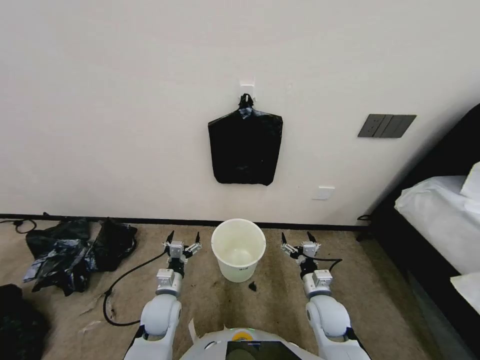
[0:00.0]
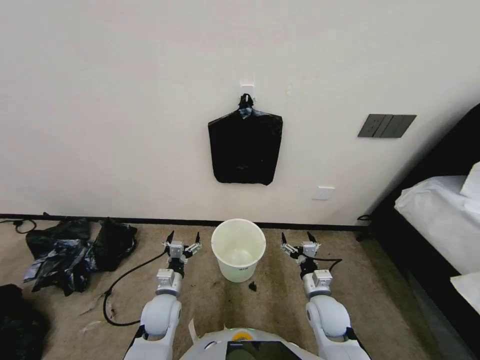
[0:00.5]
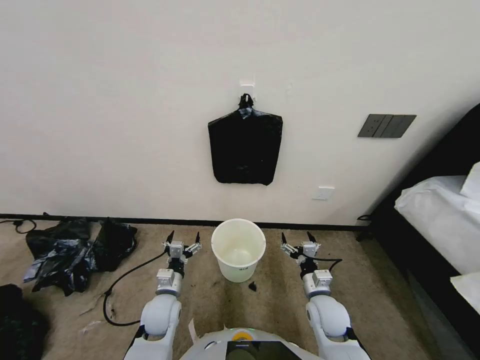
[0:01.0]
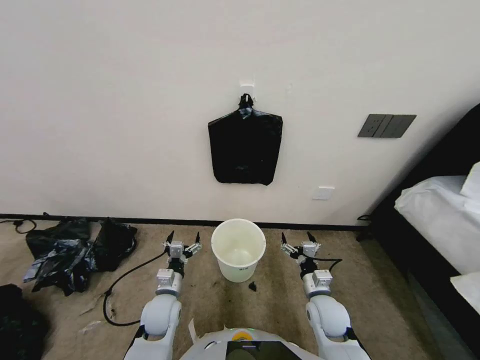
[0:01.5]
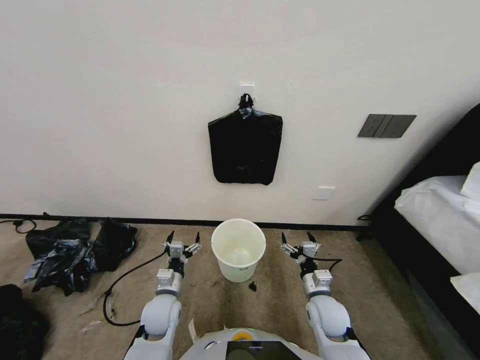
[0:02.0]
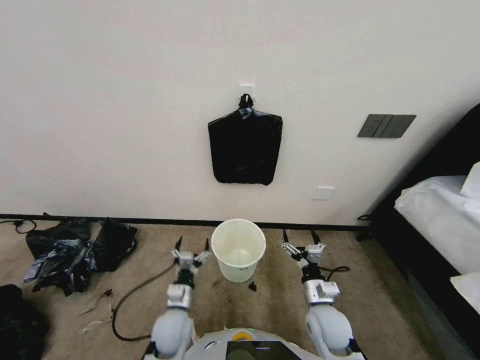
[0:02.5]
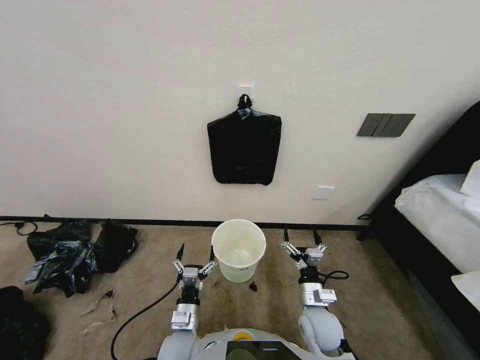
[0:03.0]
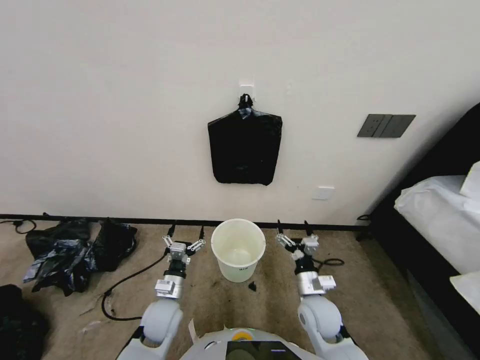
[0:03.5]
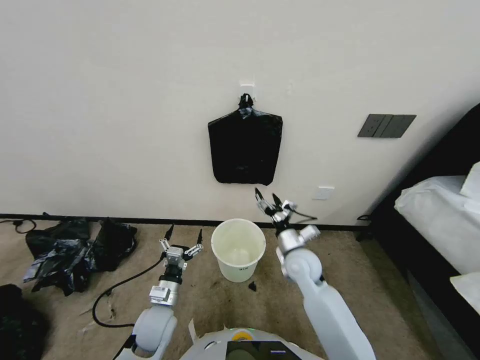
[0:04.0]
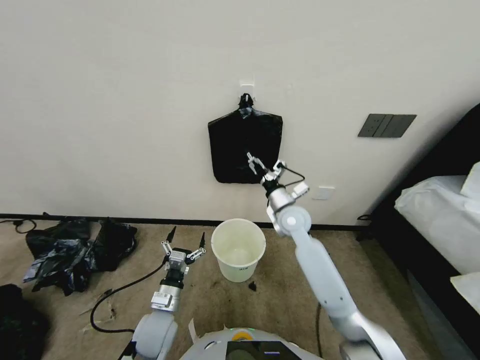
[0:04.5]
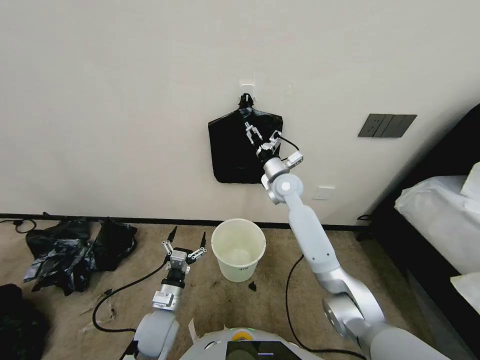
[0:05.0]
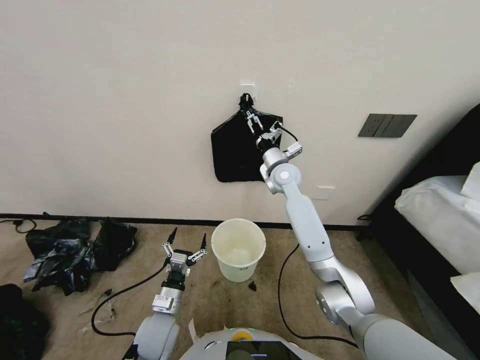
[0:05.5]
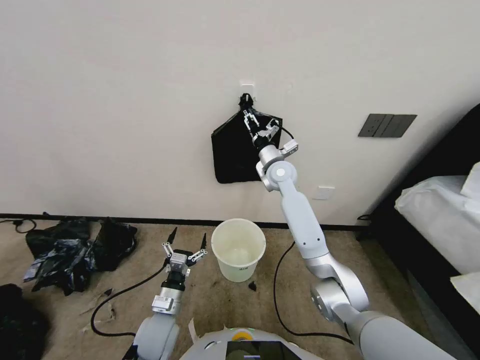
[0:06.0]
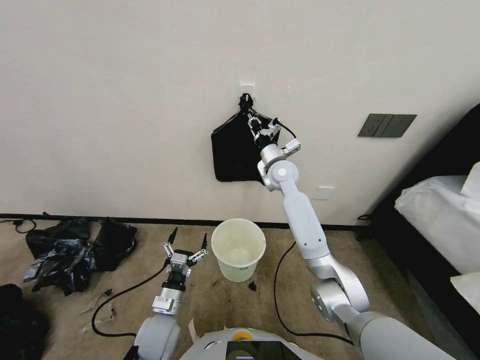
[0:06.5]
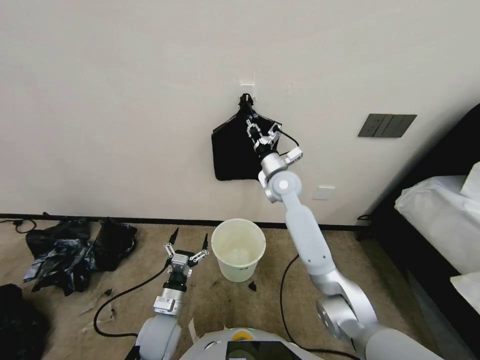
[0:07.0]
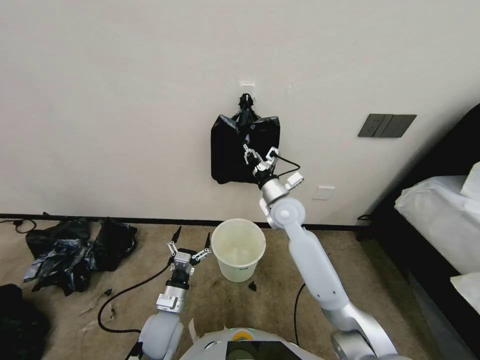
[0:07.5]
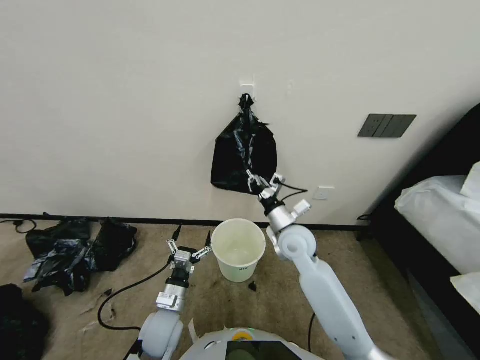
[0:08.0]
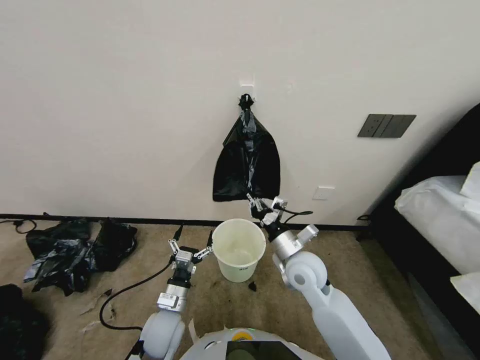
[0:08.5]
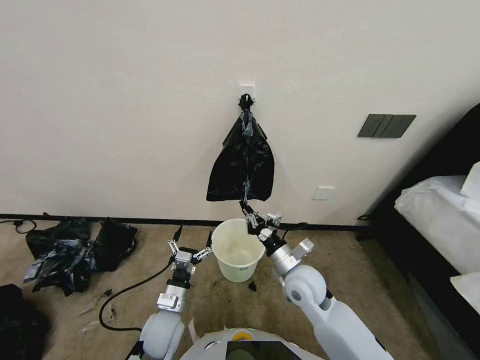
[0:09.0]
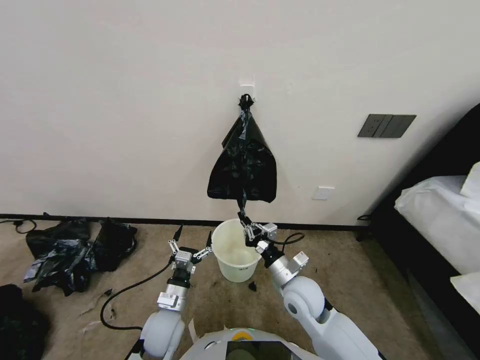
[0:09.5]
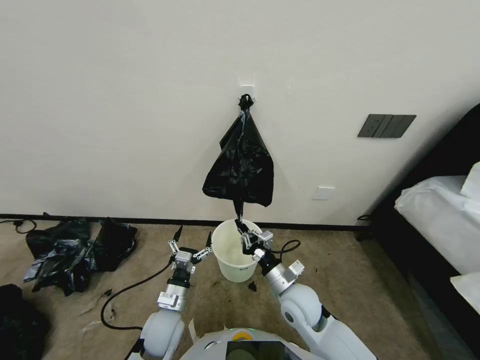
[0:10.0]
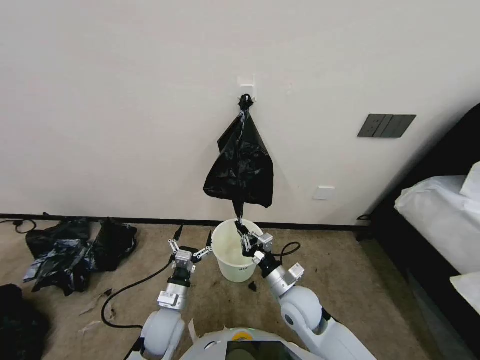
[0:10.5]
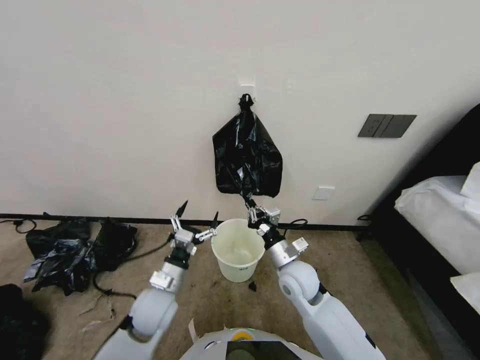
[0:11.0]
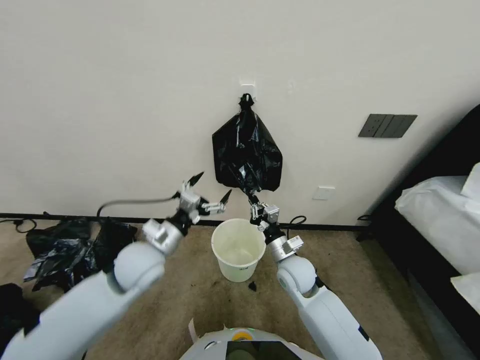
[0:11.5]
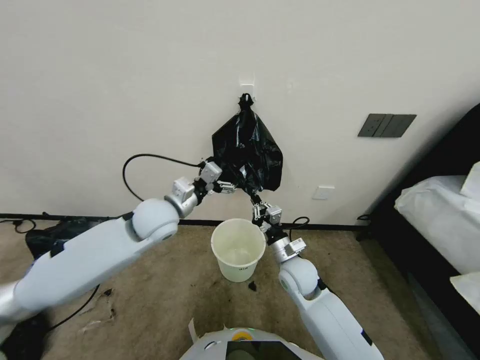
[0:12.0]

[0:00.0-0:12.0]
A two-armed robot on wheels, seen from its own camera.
Task of the whole recording: Place a trash bag onto the trash bin.
0:02.0 to 0:04.0: The right gripper moves forward and upward, roughly 10 cm. The left gripper reaches roughly 10 cm backward, then returns.
0:04.0 to 0:06.0: The right gripper shifts roughly 30 cm forward and upward, and closes up.
0:06.0 to 0:08.0: The right gripper moves backward and downward, about 20 cm, and closes.
0:08.0 to 0:10.0: The right gripper moves backward and downward, roughly 15 cm.
0:10.0 to 0:12.0: The right gripper shifts some 5 cm forward, while the left gripper travels upward and forward by approximately 30 cm.

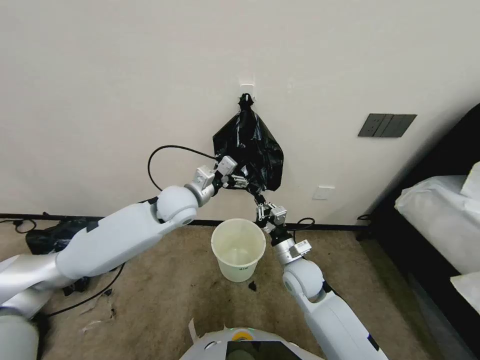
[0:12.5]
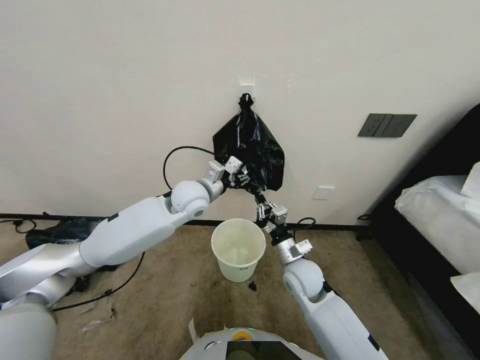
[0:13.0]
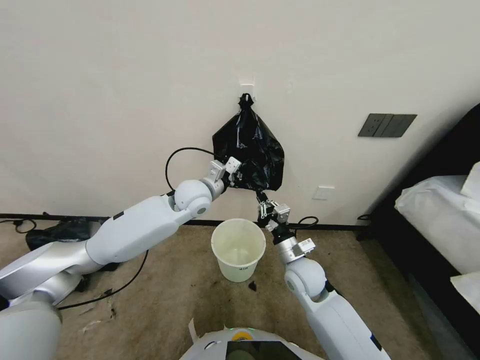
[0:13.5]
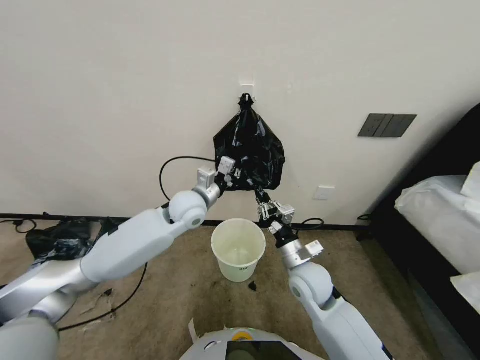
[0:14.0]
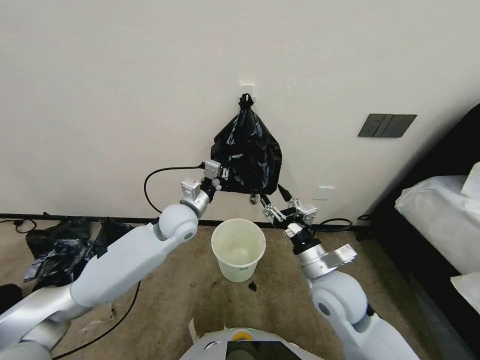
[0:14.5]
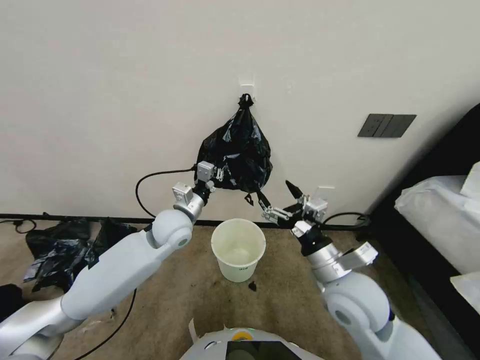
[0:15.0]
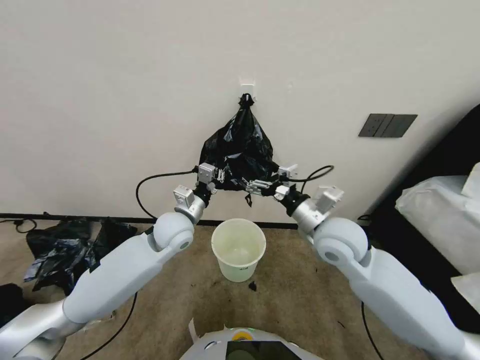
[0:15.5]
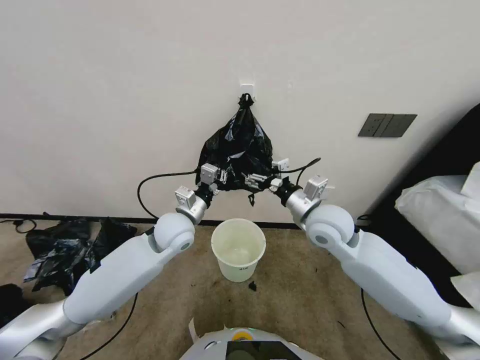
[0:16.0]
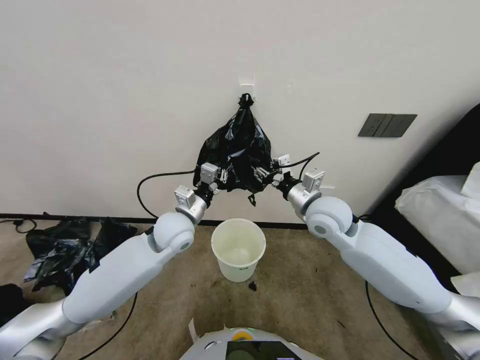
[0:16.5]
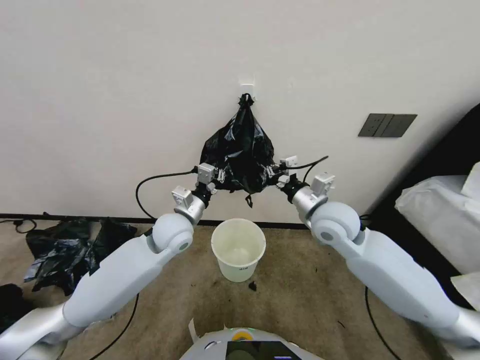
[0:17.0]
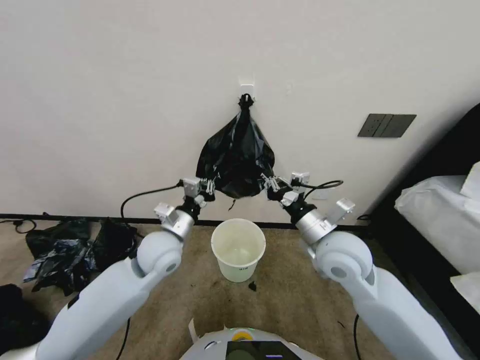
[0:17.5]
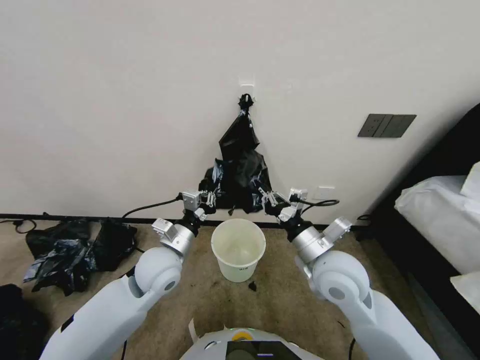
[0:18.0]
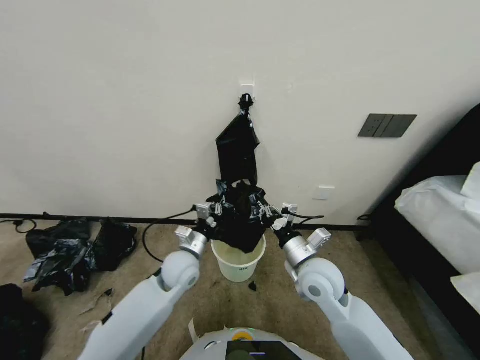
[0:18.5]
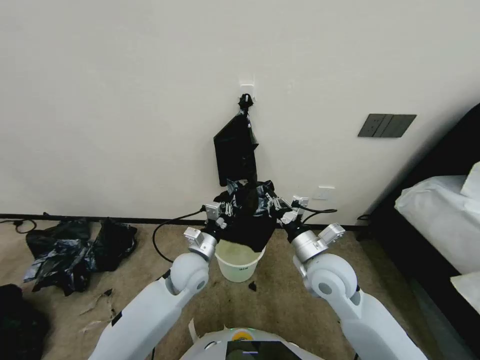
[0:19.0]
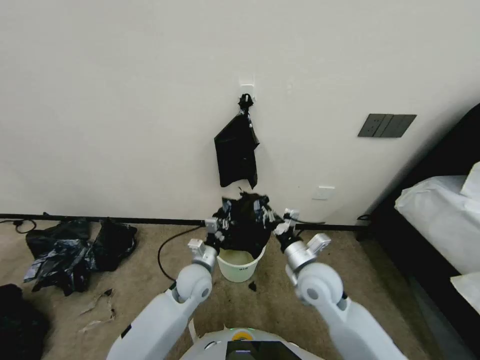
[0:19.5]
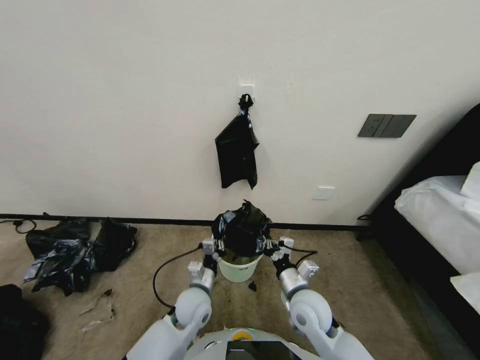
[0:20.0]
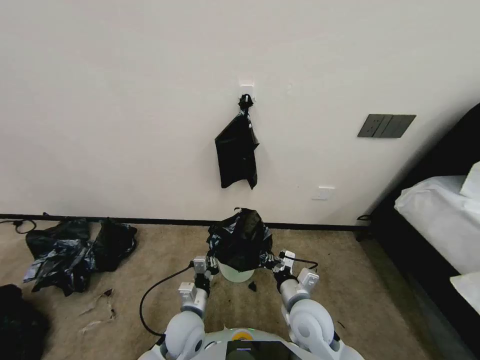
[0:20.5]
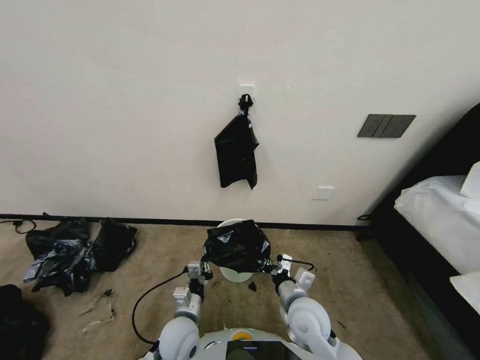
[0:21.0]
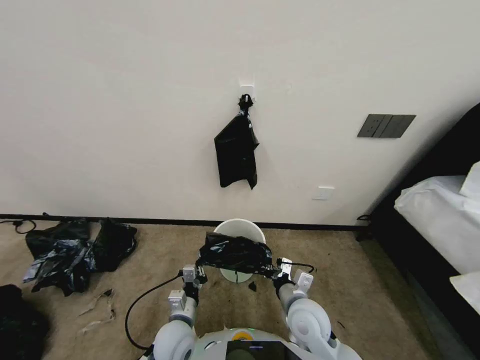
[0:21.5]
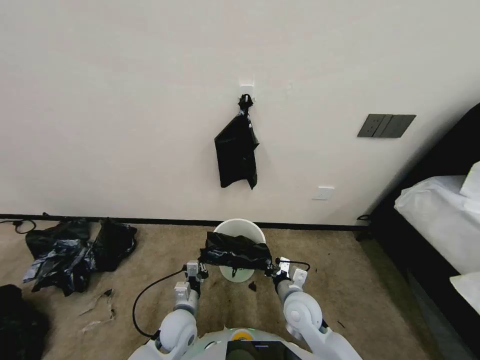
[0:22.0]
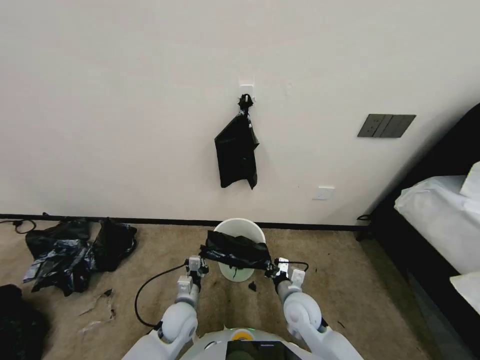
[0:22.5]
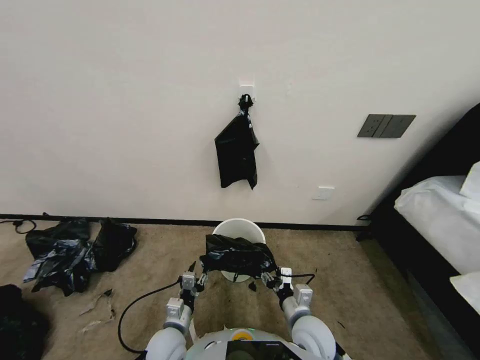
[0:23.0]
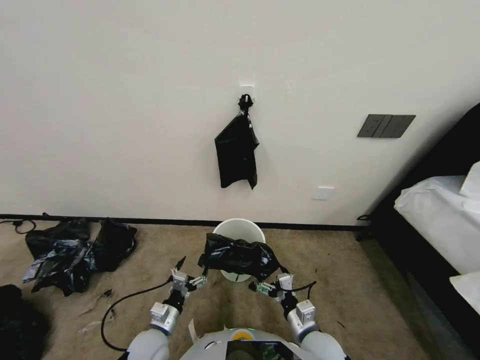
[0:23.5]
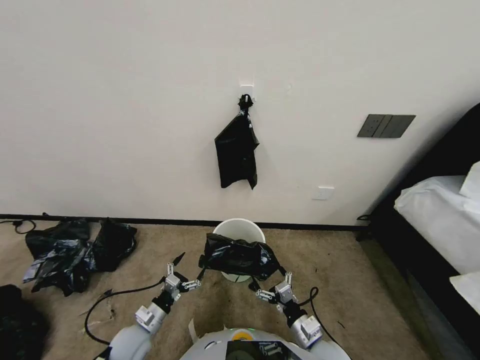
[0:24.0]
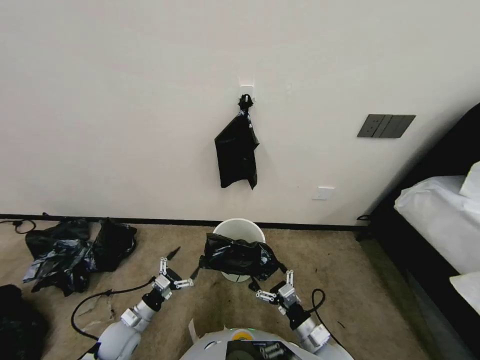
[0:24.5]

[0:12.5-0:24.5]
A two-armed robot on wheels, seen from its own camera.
Task of the whole recording: Place a trash bag onto the trash bin.
0:12.5 to 0:14.5: The left gripper closes; the right gripper is displaced upward and backward by roughly 10 cm, and opens its fingers.
0:14.5 to 0:16.5: The right gripper shifts roughly 15 cm forward and upward, and opens and closes again.
0:16.5 to 0:18.5: The left gripper moves downward and backward, roughly 10 cm. Meanwhile the right gripper heads backward and downward, covering approximately 15 cm, and closes up.
0:18.5 to 0:20.5: The two grippers go roughly 15 cm downward and backward.
0:20.5 to 0:22.5: The left gripper changes place by some 5 cm, while the right gripper goes about 5 cm downward.
0:22.5 to 0:24.5: The left gripper is displaced to the left by some 15 cm, and opens its fingers, while the right gripper is displaced backward and to the right by roughly 10 cm, and opens its fingers.

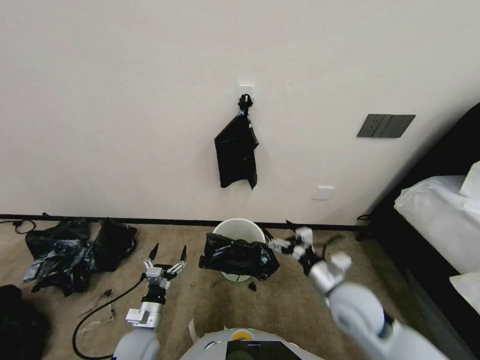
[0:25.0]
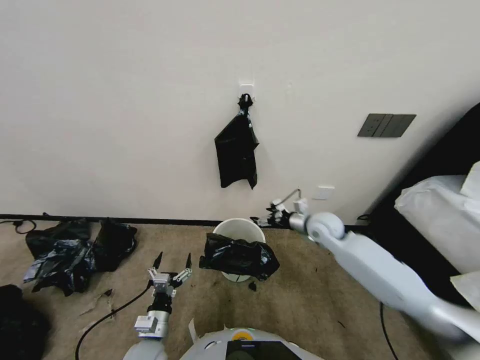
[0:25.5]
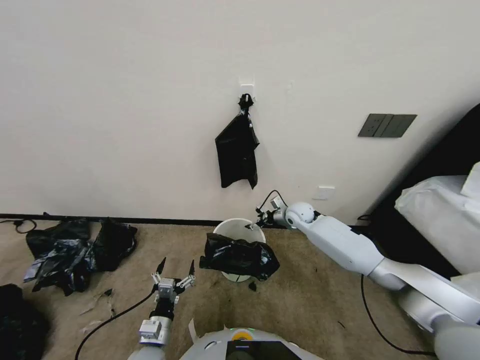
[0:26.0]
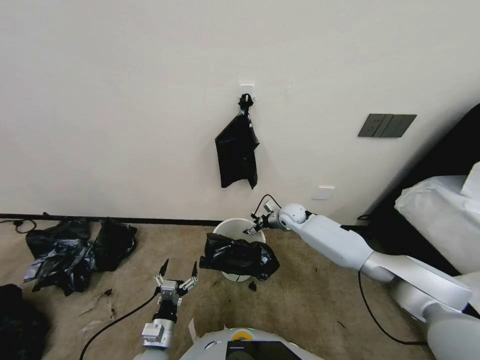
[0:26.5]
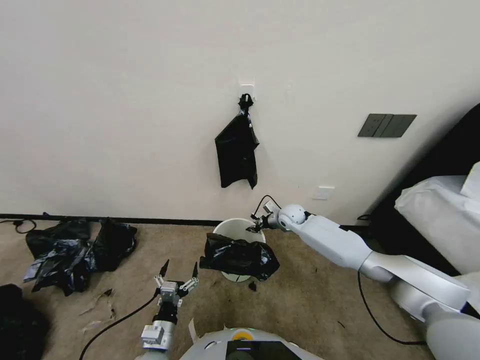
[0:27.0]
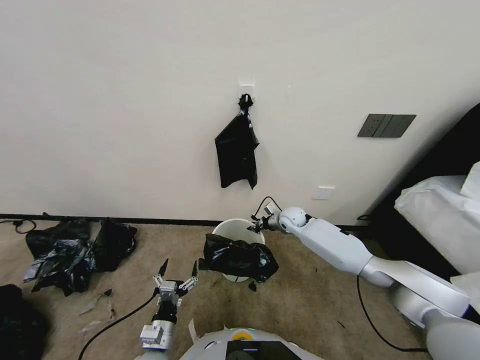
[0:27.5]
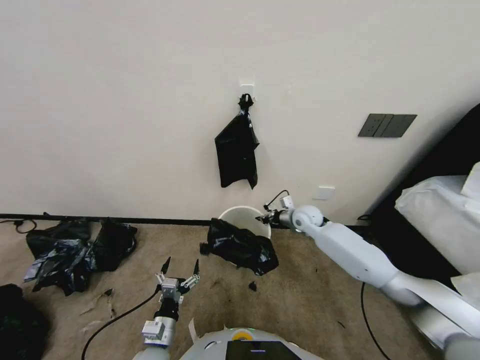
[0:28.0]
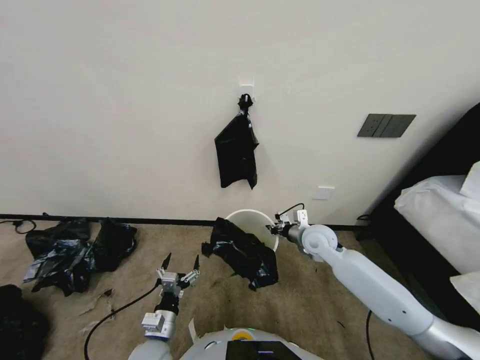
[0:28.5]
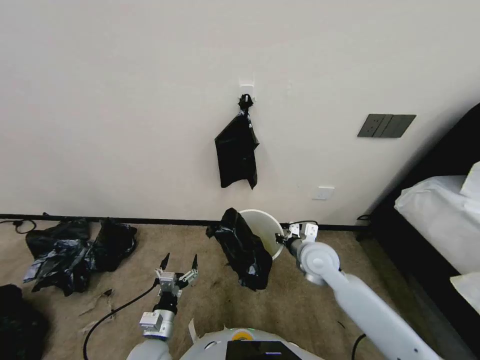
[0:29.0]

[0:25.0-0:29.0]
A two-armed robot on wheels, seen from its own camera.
Task of the whole recording: Place a trash bag onto the trash bin.
0:25.0 to 0:27.0: The left gripper heads to the right and backward, covering about 10 cm; the right gripper goes some 35 cm forward, and closes up.
0:27.0 to 0:29.0: The right gripper goes roughly 20 cm backward.
